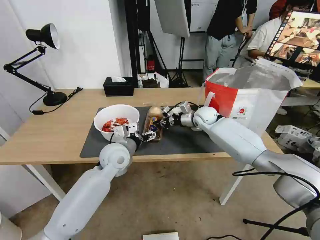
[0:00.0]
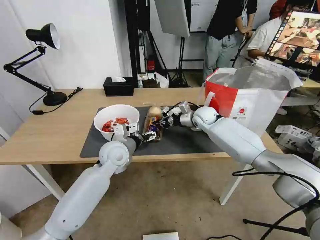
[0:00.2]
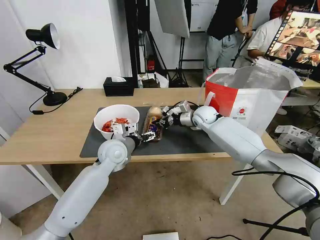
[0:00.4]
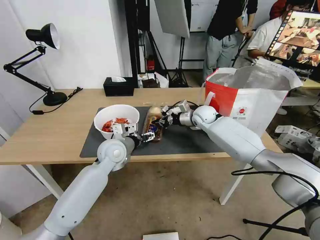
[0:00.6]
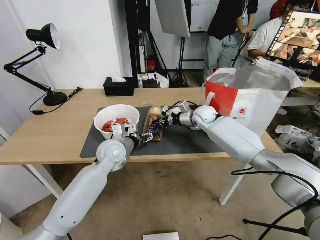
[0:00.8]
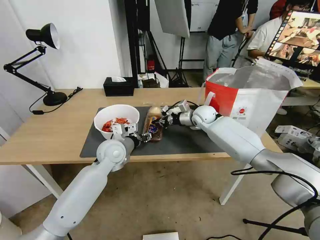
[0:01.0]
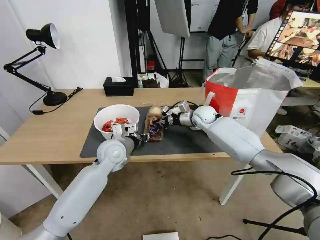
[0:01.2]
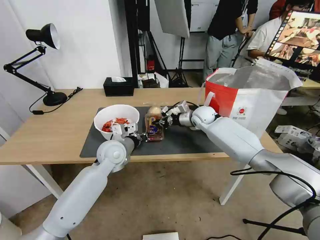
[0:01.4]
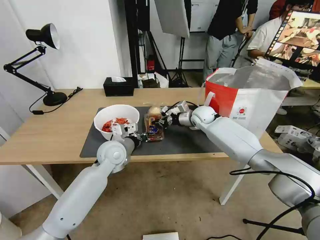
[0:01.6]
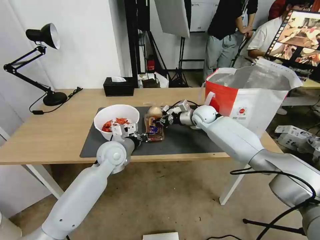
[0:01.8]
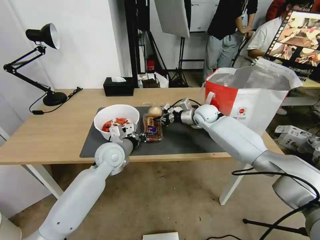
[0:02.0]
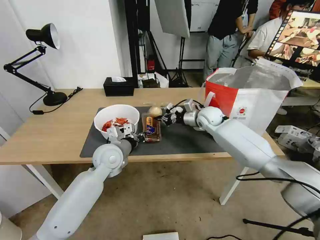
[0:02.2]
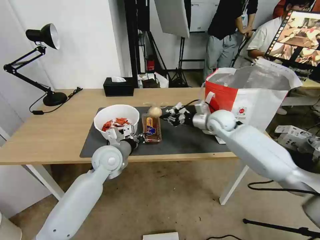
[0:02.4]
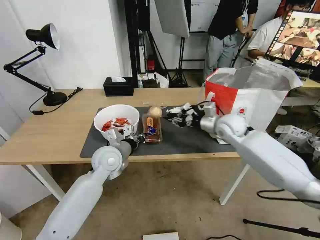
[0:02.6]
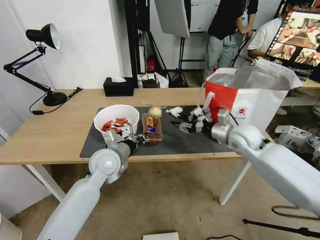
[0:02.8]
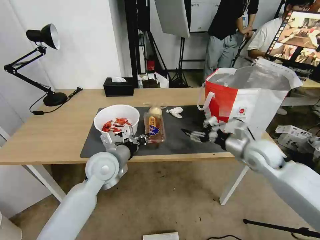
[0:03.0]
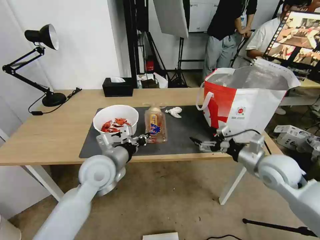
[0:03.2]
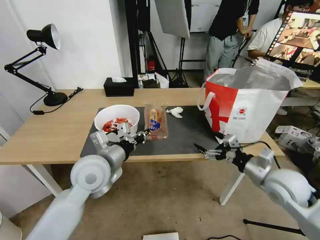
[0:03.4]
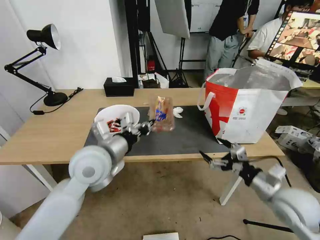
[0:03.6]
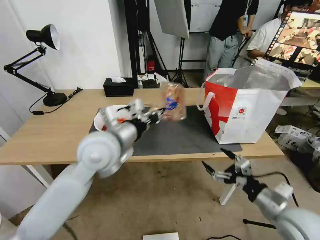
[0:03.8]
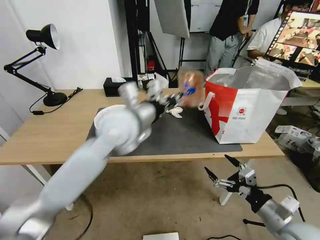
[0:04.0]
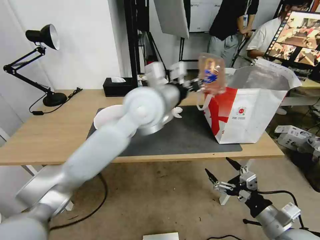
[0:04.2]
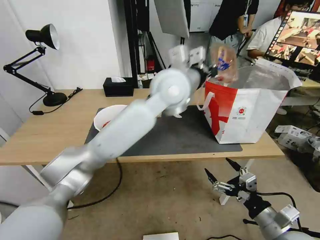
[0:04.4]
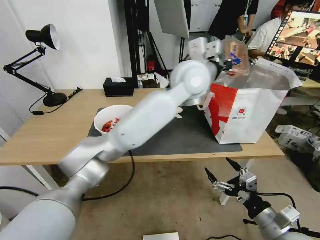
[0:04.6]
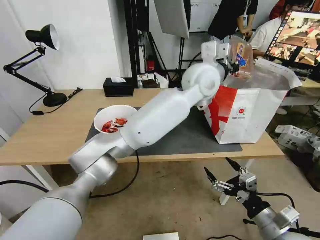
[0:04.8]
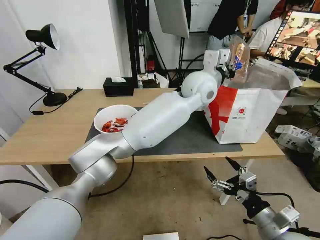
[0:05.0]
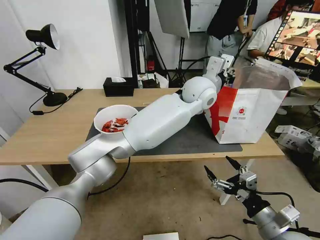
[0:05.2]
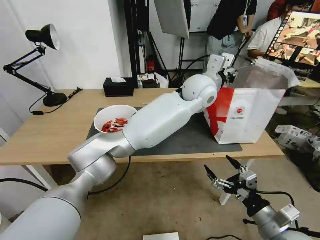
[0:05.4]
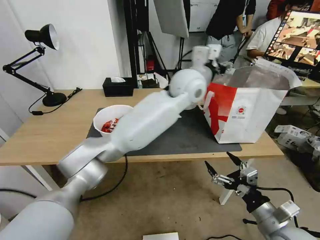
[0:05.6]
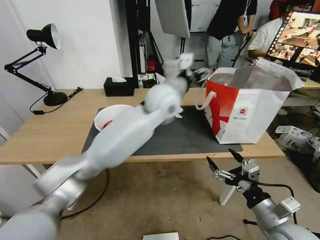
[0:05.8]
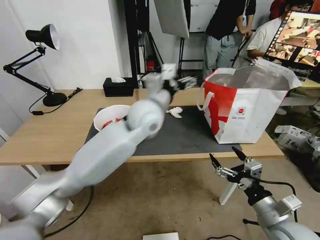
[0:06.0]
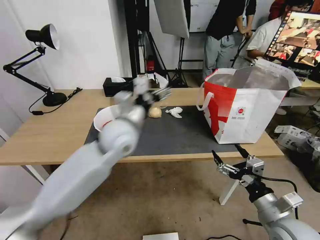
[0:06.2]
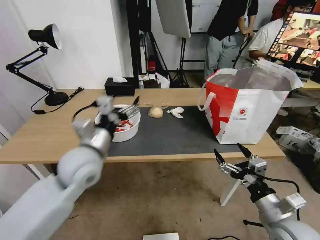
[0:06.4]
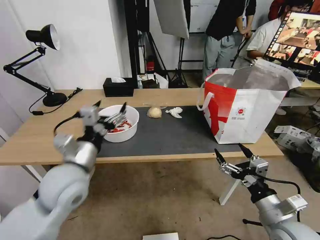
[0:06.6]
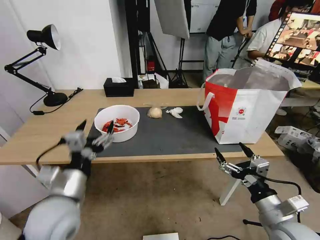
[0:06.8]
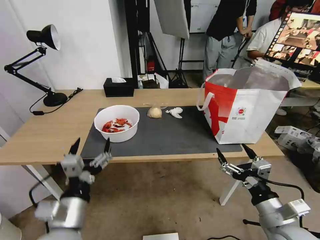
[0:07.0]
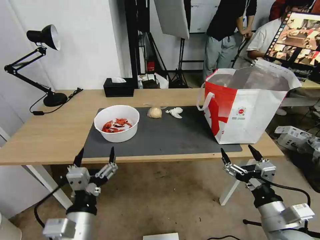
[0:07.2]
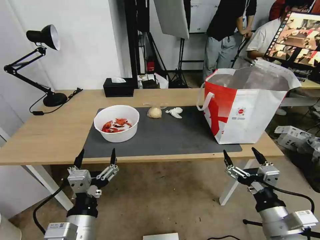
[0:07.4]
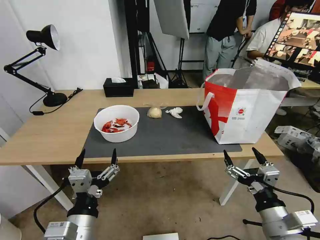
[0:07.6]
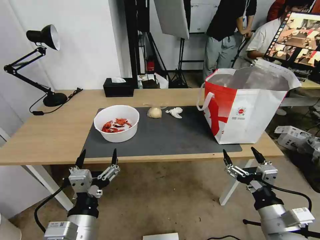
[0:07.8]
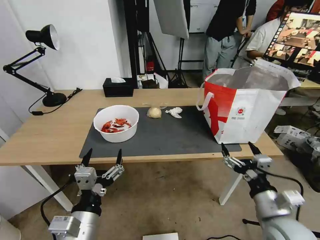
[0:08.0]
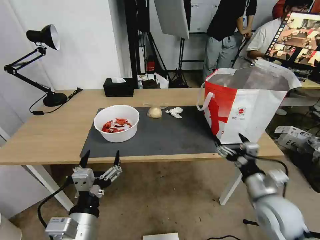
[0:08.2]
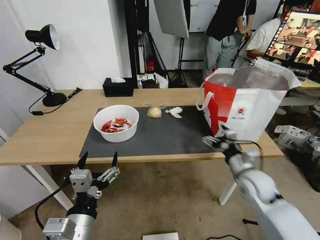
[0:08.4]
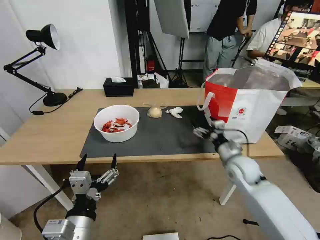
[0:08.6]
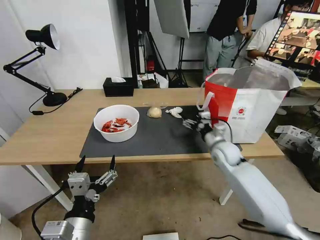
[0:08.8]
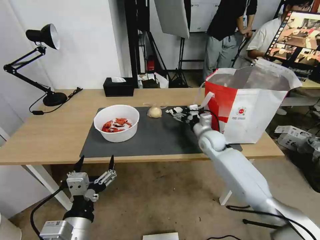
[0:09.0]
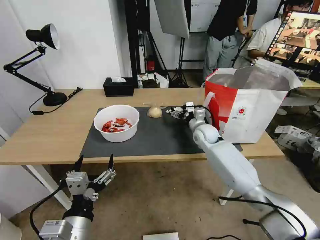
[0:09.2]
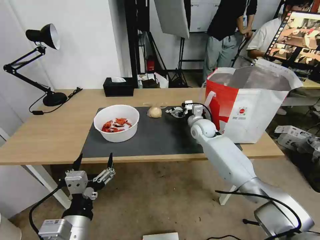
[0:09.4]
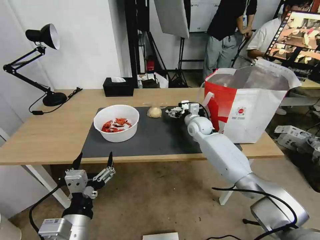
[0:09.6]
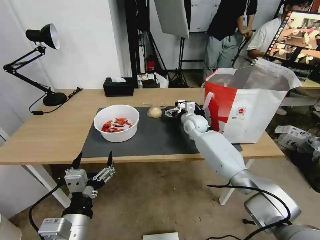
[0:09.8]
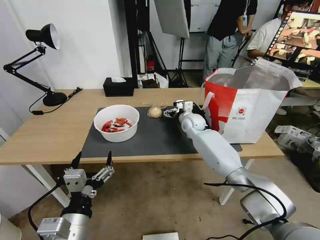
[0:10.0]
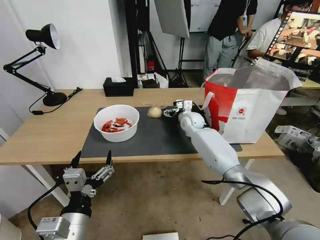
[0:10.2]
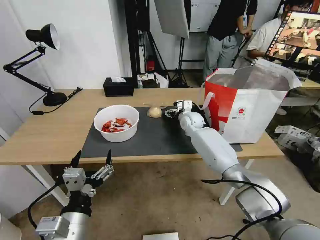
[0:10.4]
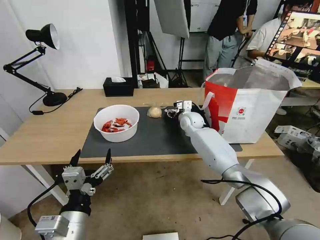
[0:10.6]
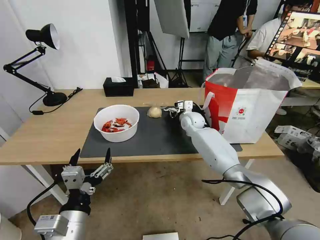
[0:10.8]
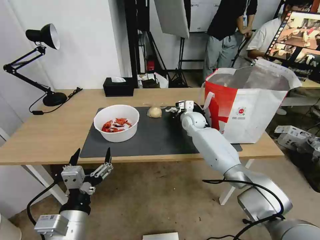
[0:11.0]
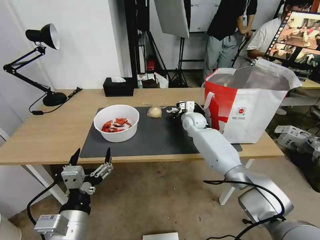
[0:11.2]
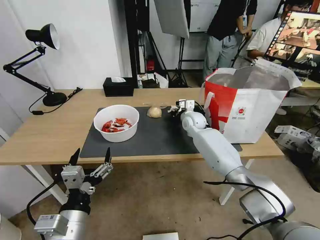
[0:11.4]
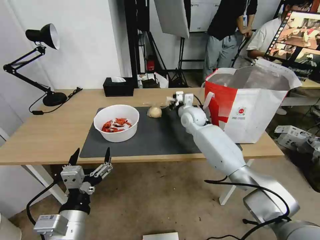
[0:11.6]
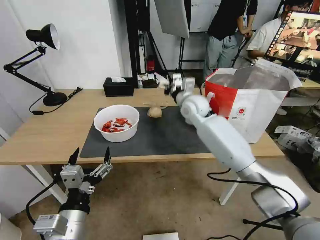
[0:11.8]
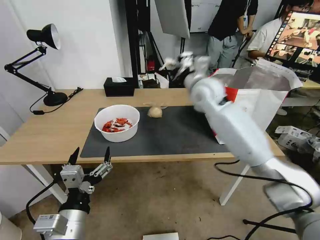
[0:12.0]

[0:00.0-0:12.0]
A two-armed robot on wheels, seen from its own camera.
Task of the whole recording: Pick up the trash from the table and place it into the takeout bag.
0:00.0 to 0:01.6: The left gripper closes.
0:01.6 to 0:03.0: The left gripper is displaced backward by roughly 5 cm. Meanwhile the right gripper heads backward and to the right, covering approximately 25 cm, and opens its fingers.
0:03.0 to 0:04.4: The right gripper travels backward by roughly 25 cm. The left gripper goes roughly 30 cm upward, to the right and forward.
0:04.4 to 0:06.0: The left gripper is displaced downward and to the left by roughly 10 cm, and opens.
0:06.0 to 0:07.6: The left gripper shifts roughly 35 cm backward, downward and to the left.
0:07.6 to 0:09.0: The right gripper moves forward, roughly 35 cm.
0:09.0 to 0:10.4: The right gripper travels forward and to the left by roughly 10 cm.
0:10.4 to 0:12.0: The right gripper heads upward, covering about 15 cm, and closes up.

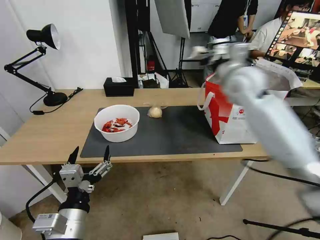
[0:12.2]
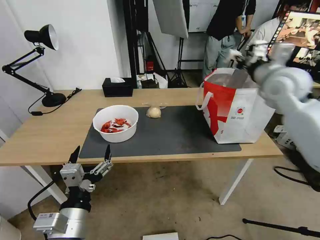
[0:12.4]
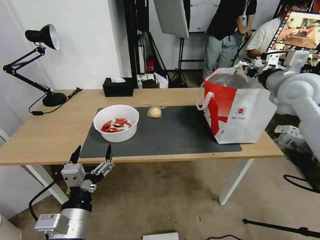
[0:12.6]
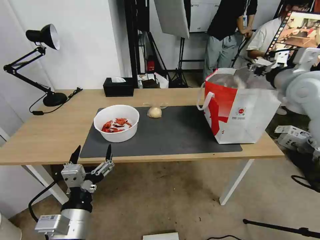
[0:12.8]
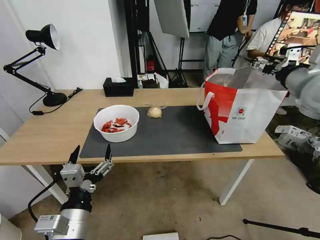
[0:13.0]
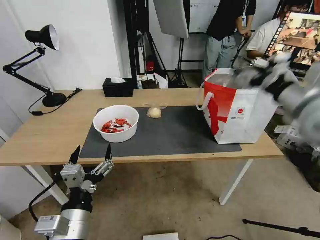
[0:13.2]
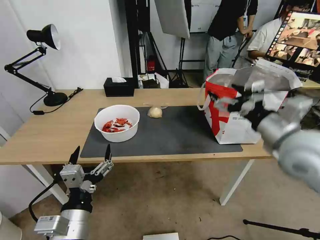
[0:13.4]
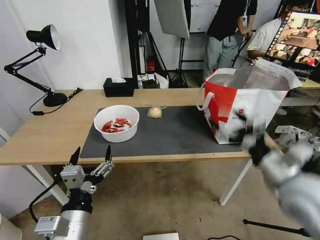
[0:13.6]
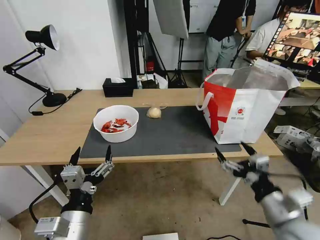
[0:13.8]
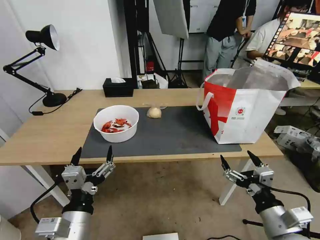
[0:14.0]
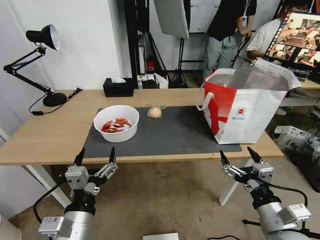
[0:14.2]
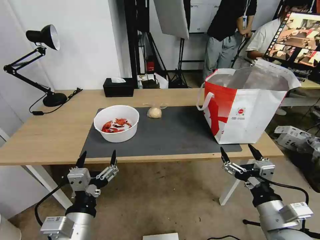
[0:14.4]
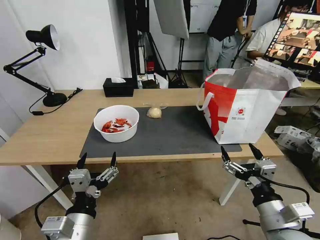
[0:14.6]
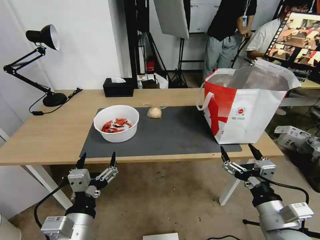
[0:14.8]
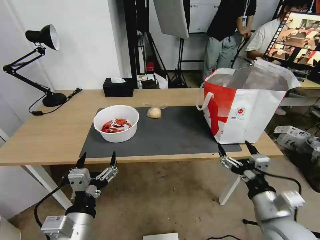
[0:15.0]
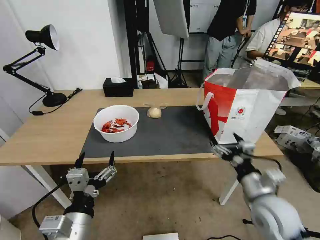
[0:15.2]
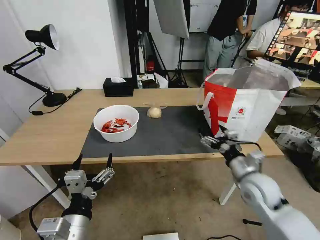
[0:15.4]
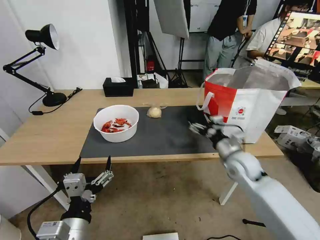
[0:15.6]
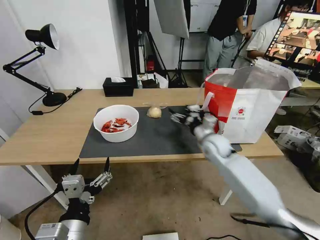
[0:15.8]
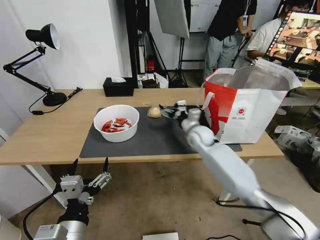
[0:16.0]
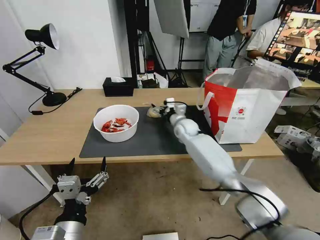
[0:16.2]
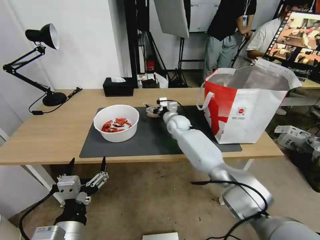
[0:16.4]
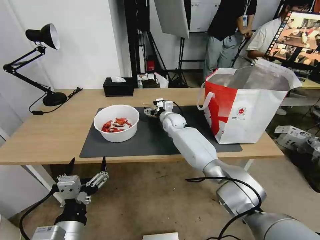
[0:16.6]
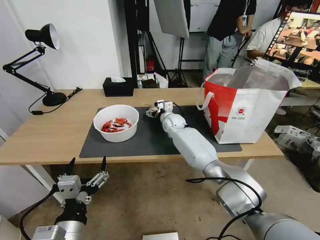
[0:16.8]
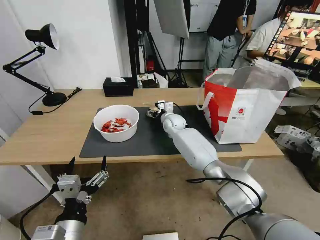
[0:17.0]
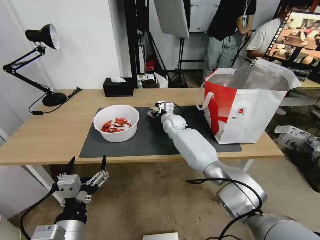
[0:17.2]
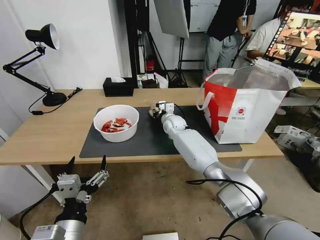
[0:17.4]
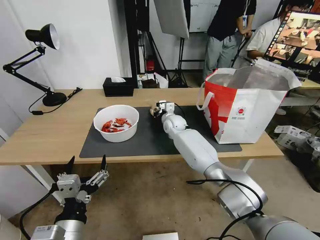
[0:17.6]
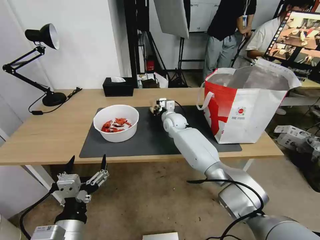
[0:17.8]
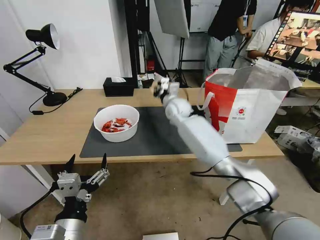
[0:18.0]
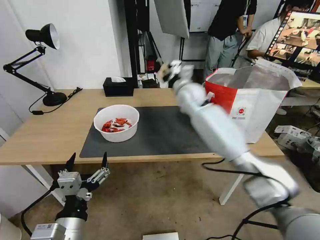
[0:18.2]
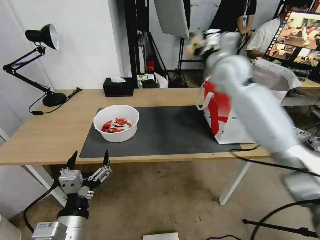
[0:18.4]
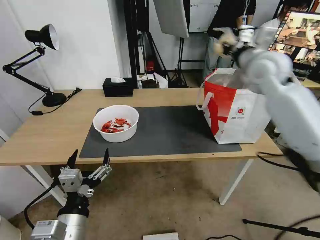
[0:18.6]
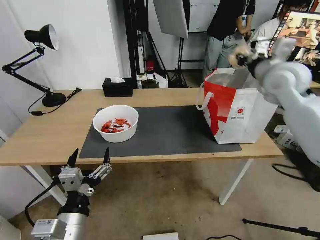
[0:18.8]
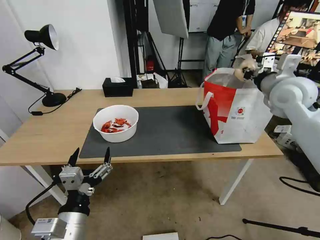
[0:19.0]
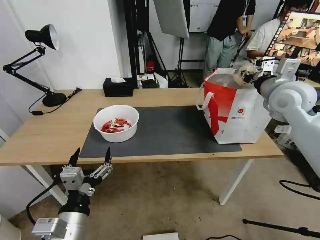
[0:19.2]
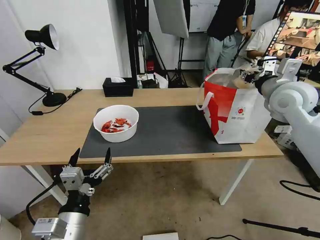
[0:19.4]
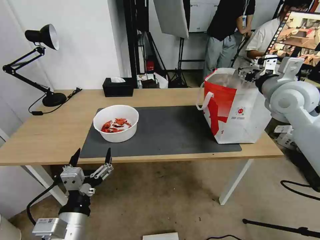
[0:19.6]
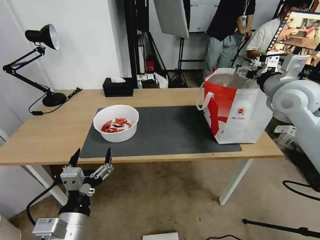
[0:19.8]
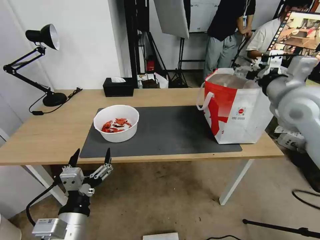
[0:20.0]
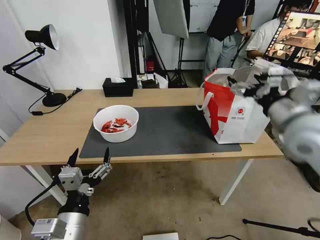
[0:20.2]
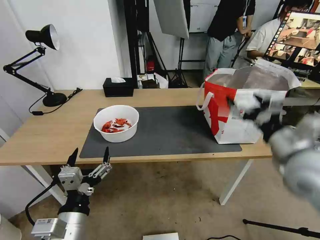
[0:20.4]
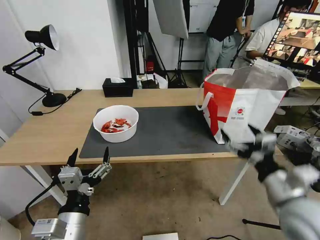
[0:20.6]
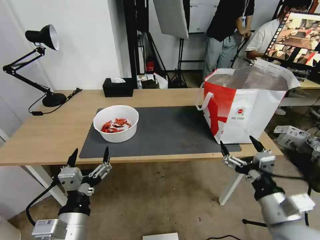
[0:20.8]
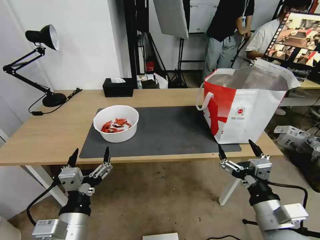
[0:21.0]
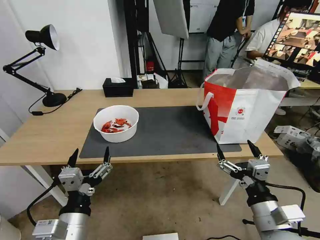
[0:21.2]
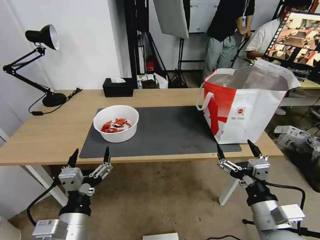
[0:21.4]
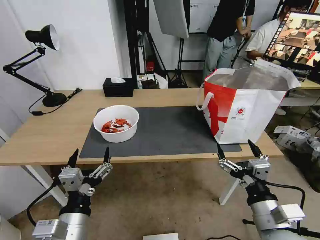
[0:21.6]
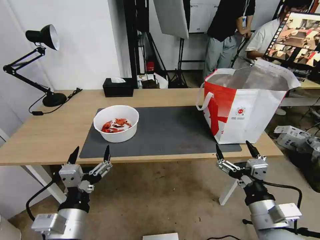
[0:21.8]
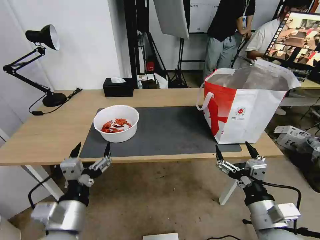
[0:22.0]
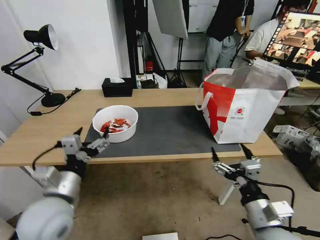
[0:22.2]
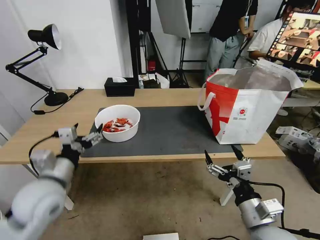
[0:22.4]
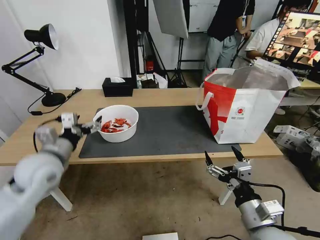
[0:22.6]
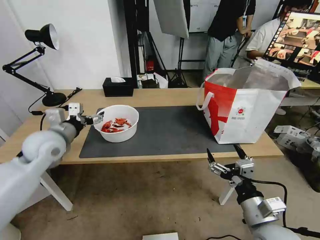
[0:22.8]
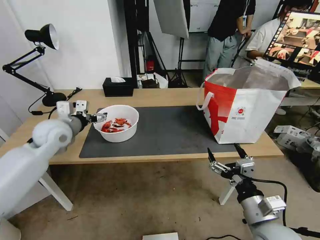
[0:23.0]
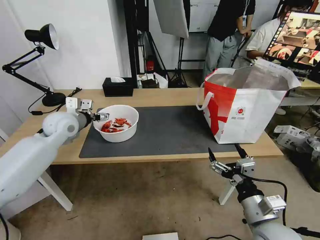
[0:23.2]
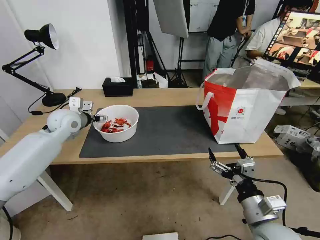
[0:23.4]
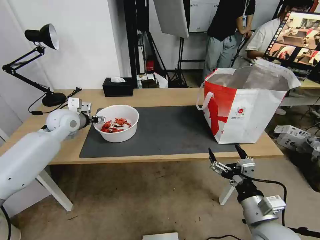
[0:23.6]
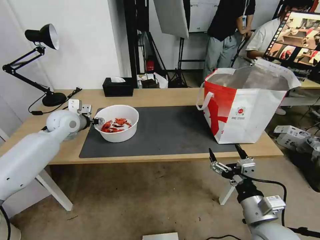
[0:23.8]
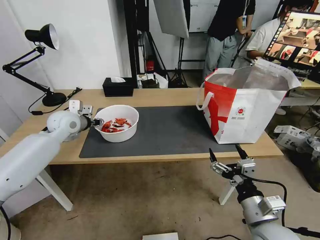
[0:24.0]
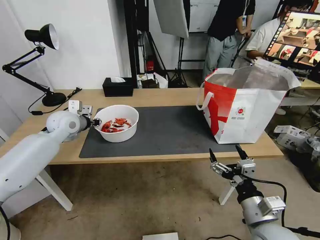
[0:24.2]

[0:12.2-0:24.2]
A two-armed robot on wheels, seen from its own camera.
Task of the whole recording: Pick up the trash from the table and place it into the takeout bag.
0:12.2 to 0:13.8: The right gripper moves backward and downward, about 40 cm, and opens up.
0:13.8 to 0:15.2: The right gripper heads forward, covering roughly 5 cm.
0:15.2 to 0:16.6: The right gripper is displaced forward and to the left by roughly 40 cm.
0:16.6 to 0:18.2: The right gripper is displaced upward by roughly 20 cm, and closes.
0:18.2 to 0:19.8: The right gripper heads to the right and backward, covering approximately 25 cm, and opens its fingers.
0:19.8 to 0:21.2: The right gripper shifts approximately 35 cm backward and downward.
0:21.2 to 0:22.6: The left gripper goes roughly 25 cm forward and to the left.
0:22.6 to 0:24.2: The left gripper moves forward, about 15 cm, and closes its fingers.
